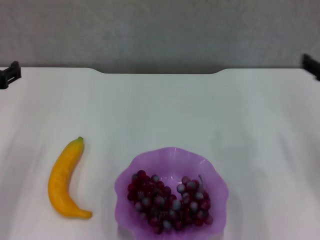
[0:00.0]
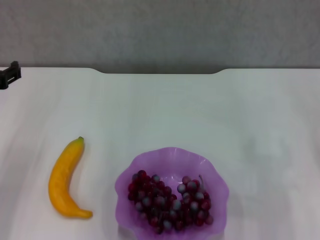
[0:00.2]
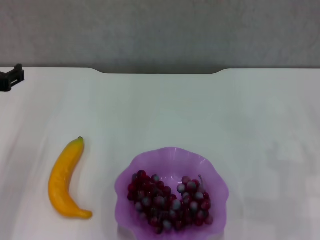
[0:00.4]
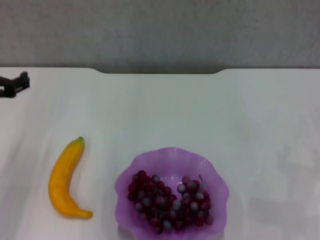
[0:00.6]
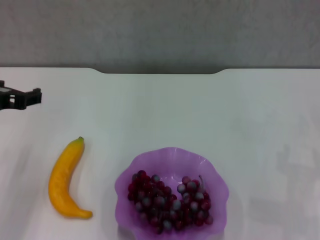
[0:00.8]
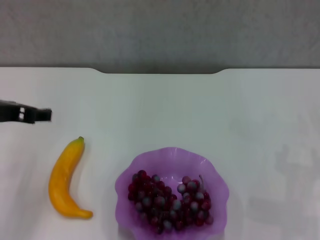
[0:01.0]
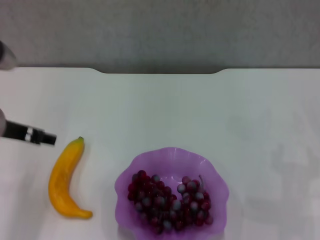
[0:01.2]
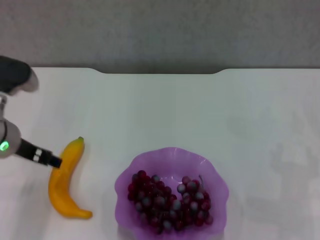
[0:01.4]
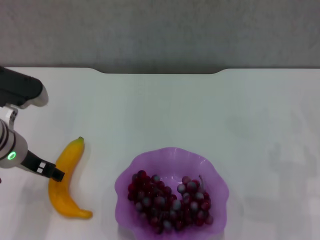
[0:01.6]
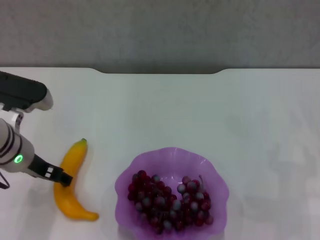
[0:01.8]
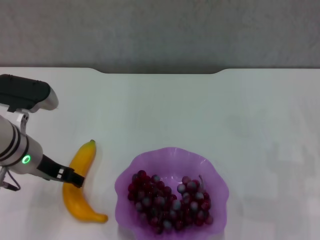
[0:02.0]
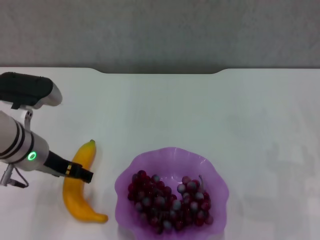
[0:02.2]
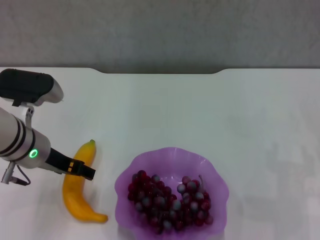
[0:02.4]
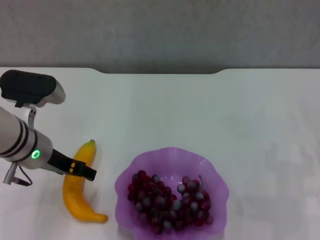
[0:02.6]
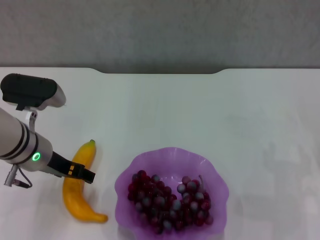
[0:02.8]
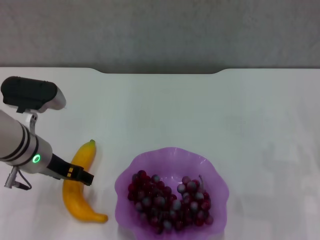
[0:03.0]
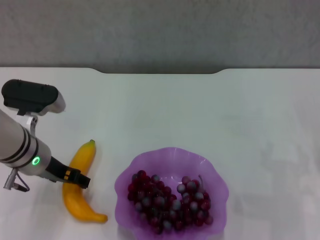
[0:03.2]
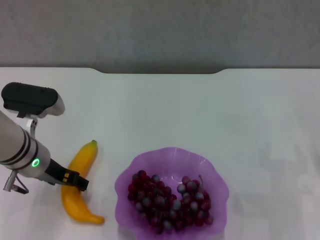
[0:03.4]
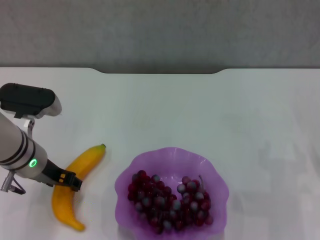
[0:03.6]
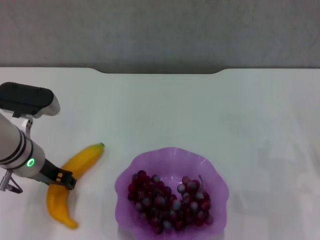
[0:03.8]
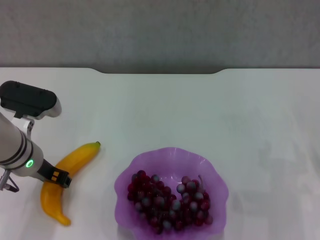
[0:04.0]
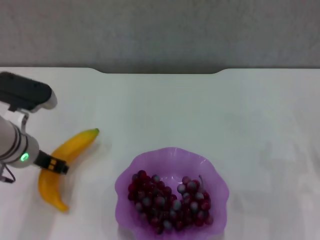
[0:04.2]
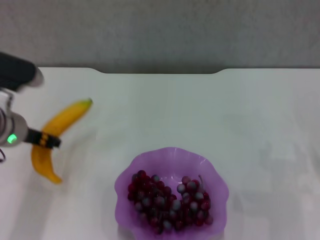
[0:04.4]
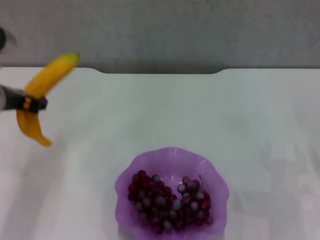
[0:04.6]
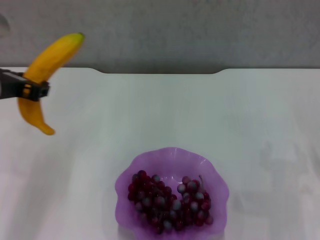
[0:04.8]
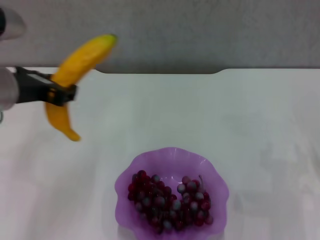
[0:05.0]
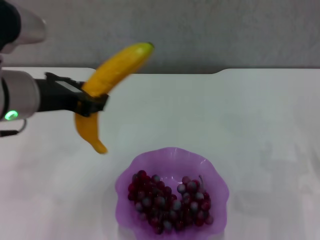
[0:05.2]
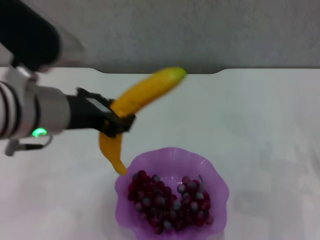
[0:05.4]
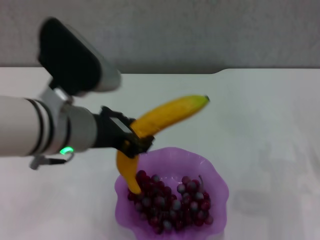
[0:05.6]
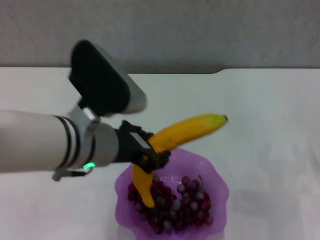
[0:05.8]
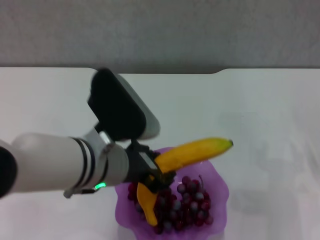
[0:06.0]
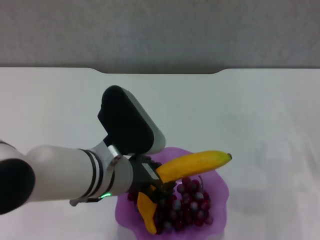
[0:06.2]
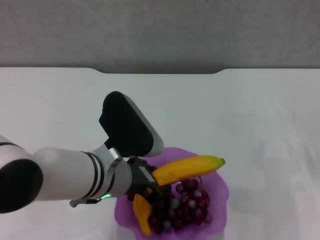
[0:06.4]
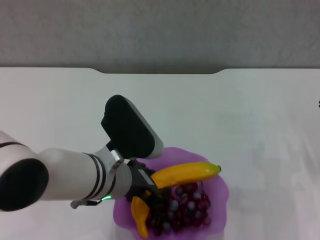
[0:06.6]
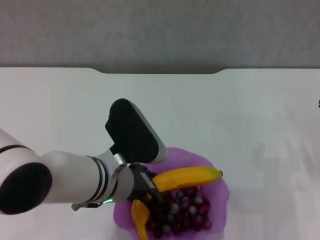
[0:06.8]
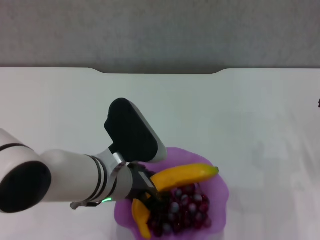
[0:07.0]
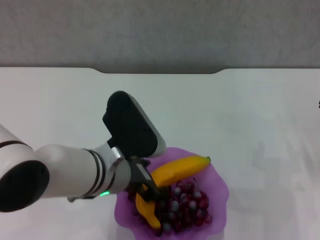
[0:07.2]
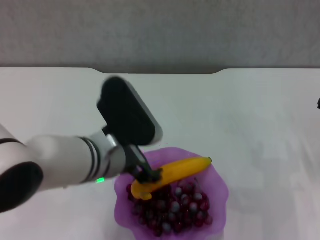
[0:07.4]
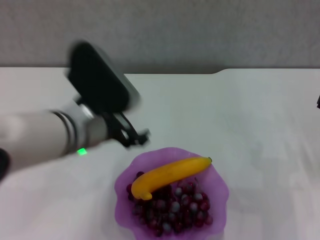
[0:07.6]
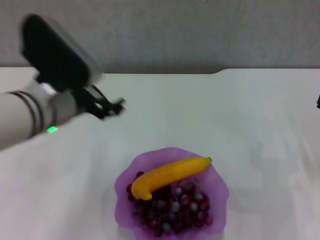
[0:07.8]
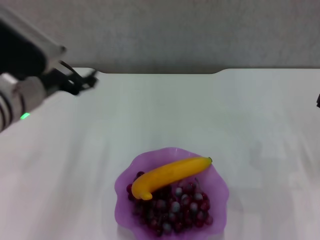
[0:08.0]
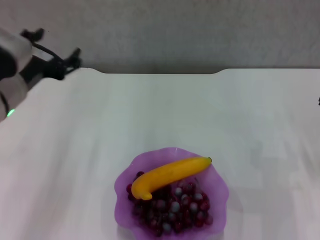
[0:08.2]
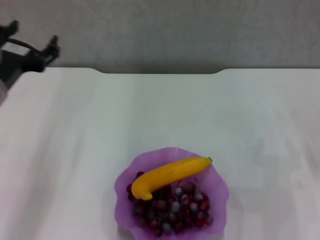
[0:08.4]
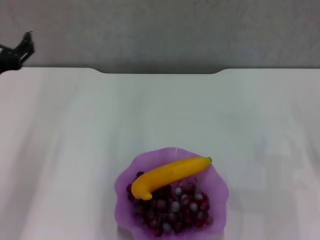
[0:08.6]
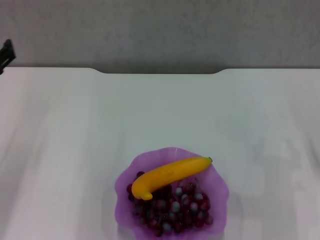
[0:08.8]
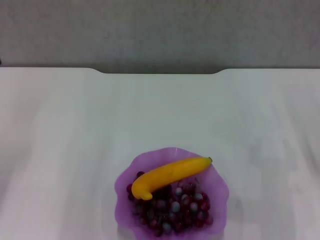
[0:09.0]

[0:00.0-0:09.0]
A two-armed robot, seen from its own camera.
Step, 0:00.0 to 0:03.8: Grasp the banana with left gripper.
Step, 0:04.0 to 0:07.4: Place the banana in the purple plate with left gripper.
0:00.0 to 0:01.6: The right gripper shifts some 10 cm to the right and downward; the left gripper travels to the right by roughly 5 cm.
0:01.6 to 0:03.0: There are only small adjustments of the grippers.
0:03.0 to 0:04.4: The left gripper closes.
0:04.4 to 0:06.0: The left gripper moves to the right and backward, roughly 15 cm.
0:06.0 to 0:07.6: The left gripper opens.
0:07.6 to 0:09.0: The left gripper travels to the left by about 20 cm.
